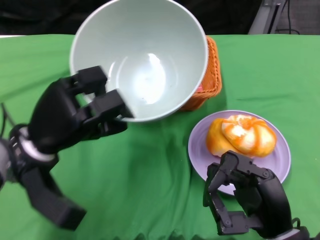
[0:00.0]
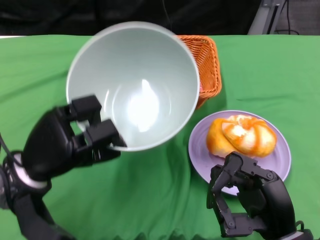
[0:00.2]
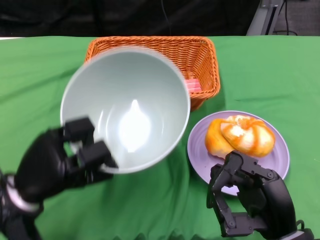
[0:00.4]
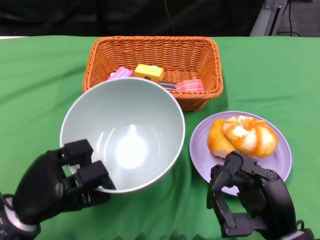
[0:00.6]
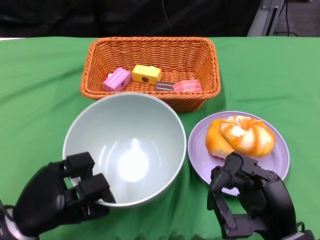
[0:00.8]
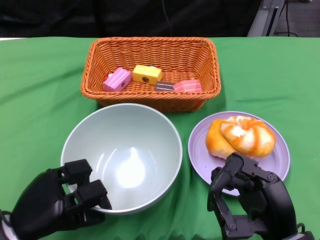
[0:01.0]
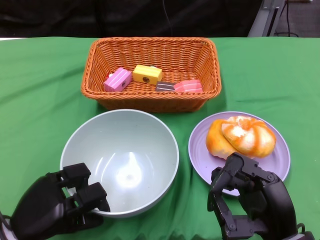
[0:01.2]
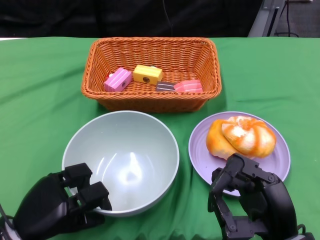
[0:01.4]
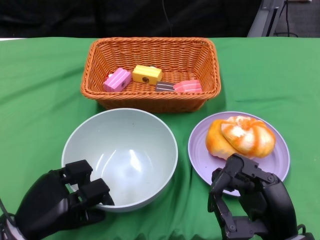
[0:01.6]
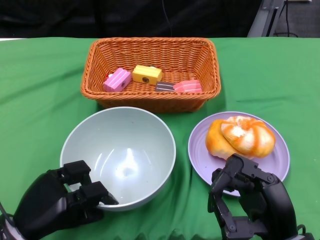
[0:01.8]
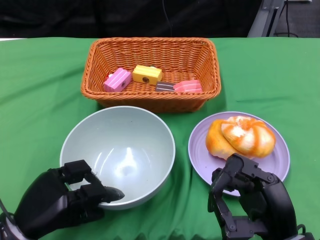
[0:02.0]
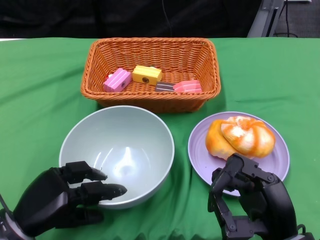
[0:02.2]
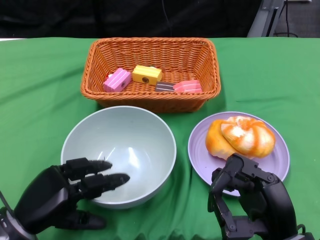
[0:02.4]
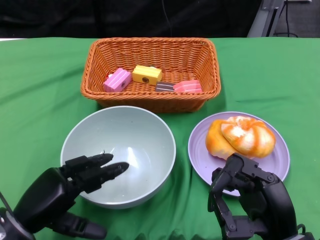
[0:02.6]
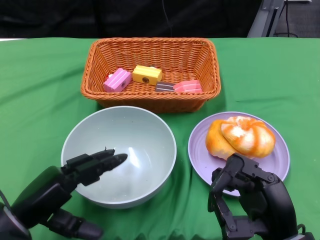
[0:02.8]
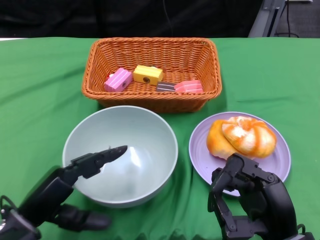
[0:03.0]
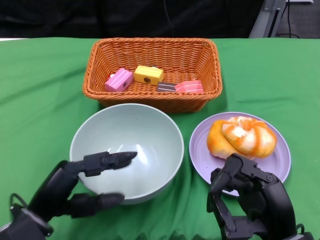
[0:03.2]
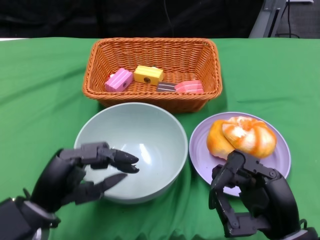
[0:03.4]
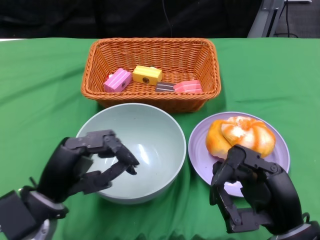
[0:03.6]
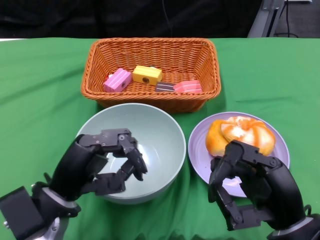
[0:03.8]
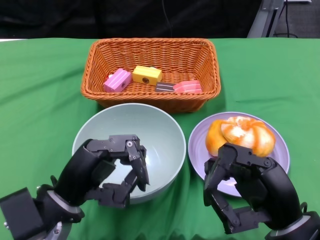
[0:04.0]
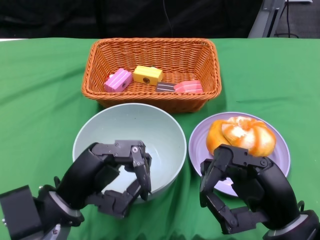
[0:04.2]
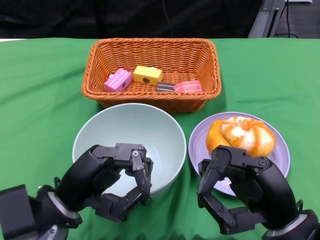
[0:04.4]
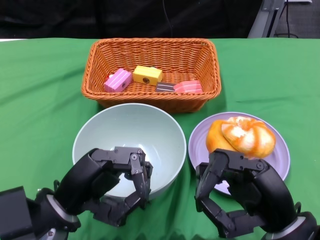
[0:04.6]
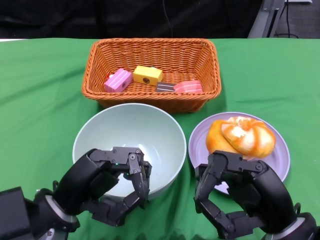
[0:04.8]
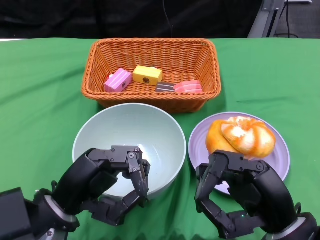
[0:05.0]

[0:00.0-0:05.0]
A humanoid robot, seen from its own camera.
Step, 0:00.0 to 0:02.0: Place the bowl on the table with the left gripper.
0:00.0 to 0:01.6: The left hand heads downward and backward, covering some 15 cm.
0:01.6 to 0:03.4: The left hand shifts by about 5 cm.
0:03.4 to 0:05.0: There are only small adjustments of the hands.

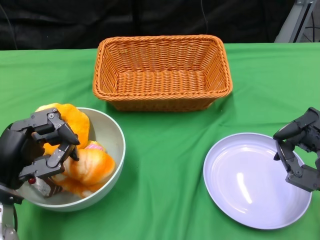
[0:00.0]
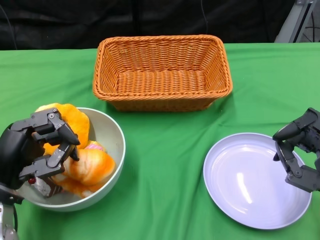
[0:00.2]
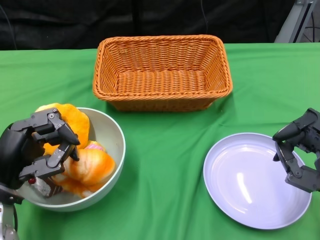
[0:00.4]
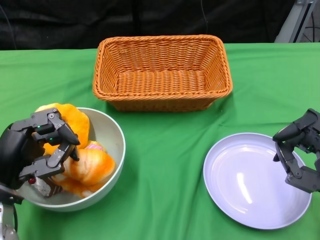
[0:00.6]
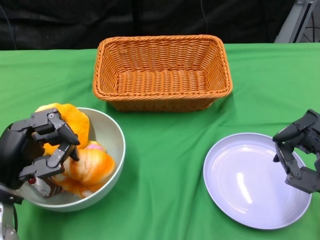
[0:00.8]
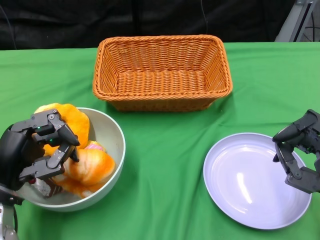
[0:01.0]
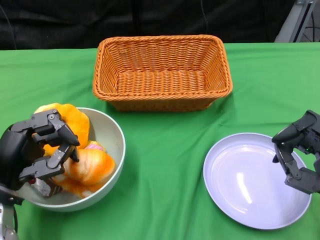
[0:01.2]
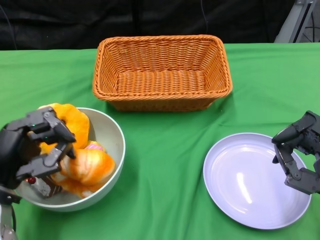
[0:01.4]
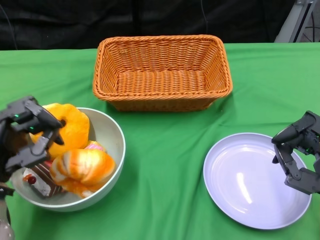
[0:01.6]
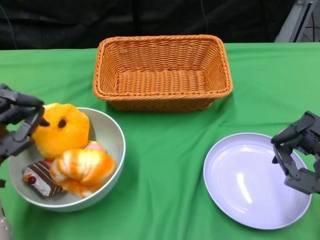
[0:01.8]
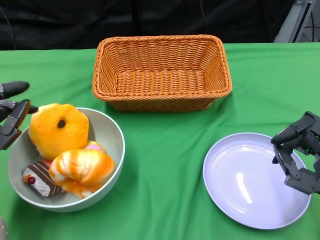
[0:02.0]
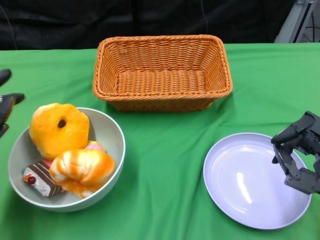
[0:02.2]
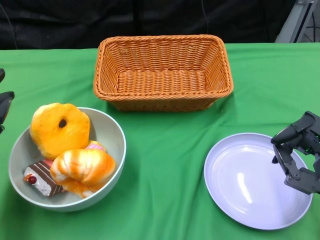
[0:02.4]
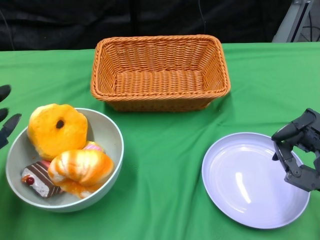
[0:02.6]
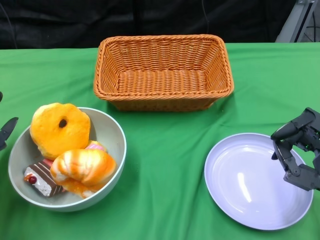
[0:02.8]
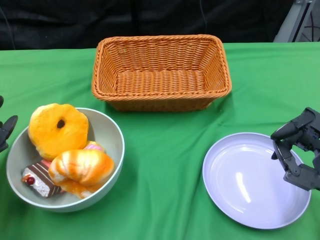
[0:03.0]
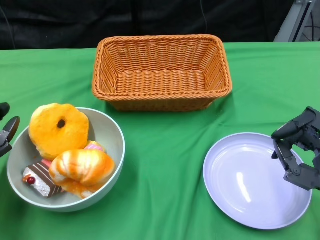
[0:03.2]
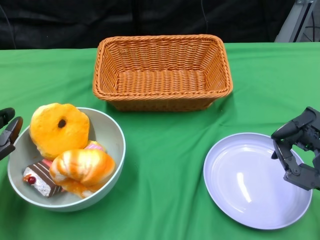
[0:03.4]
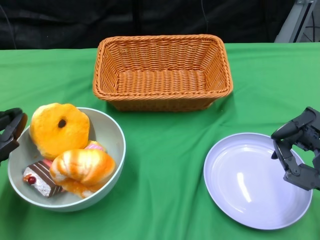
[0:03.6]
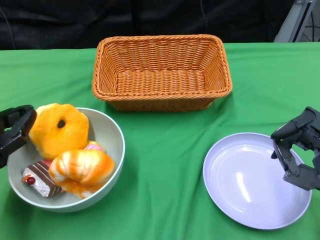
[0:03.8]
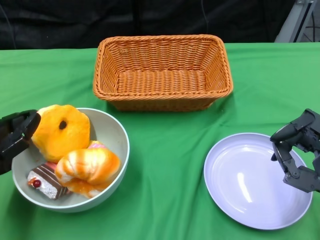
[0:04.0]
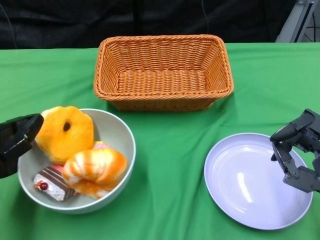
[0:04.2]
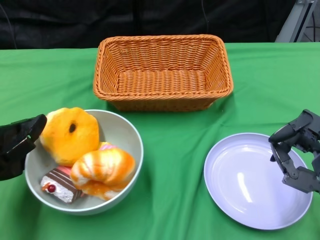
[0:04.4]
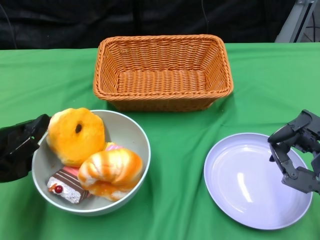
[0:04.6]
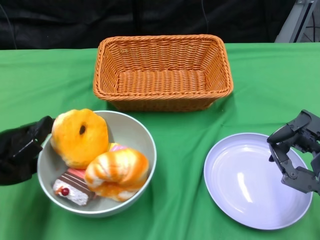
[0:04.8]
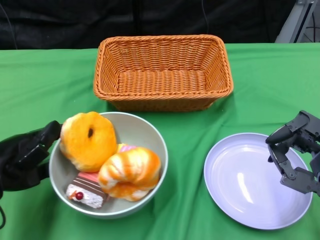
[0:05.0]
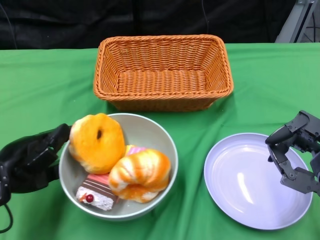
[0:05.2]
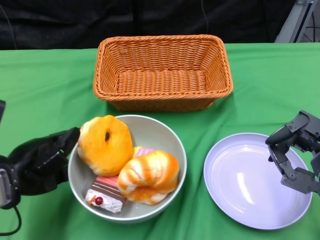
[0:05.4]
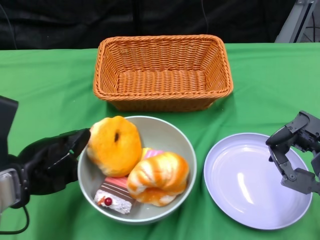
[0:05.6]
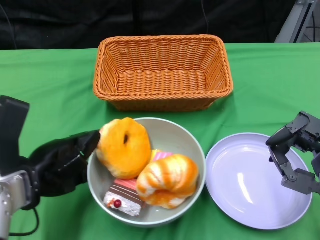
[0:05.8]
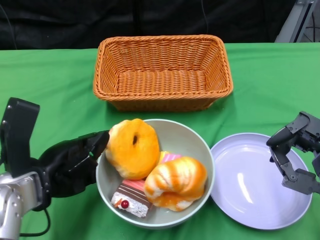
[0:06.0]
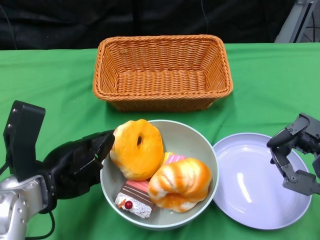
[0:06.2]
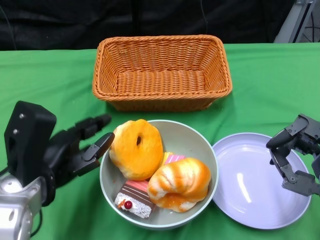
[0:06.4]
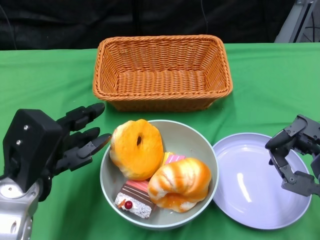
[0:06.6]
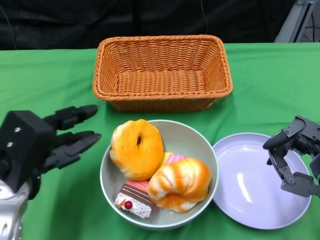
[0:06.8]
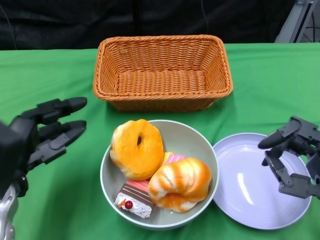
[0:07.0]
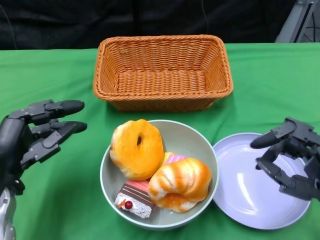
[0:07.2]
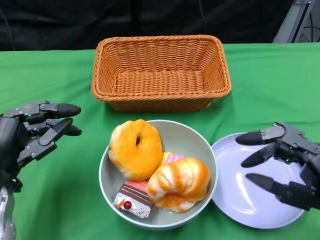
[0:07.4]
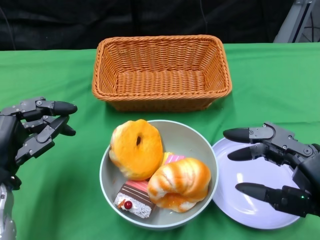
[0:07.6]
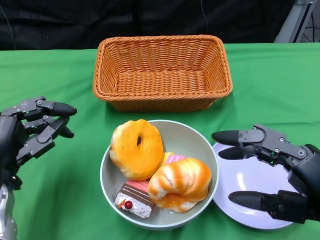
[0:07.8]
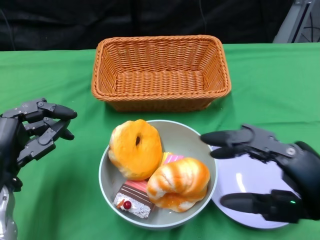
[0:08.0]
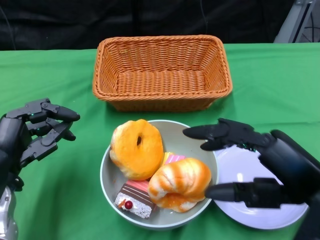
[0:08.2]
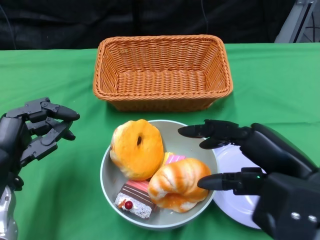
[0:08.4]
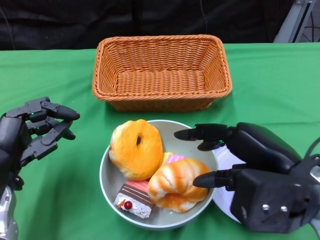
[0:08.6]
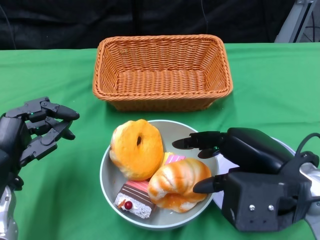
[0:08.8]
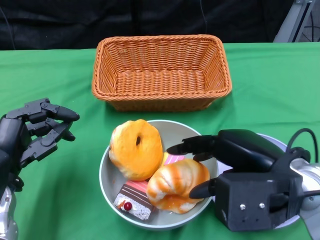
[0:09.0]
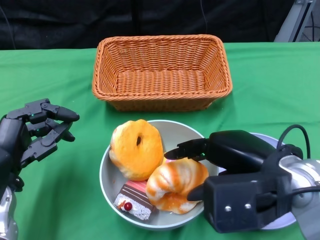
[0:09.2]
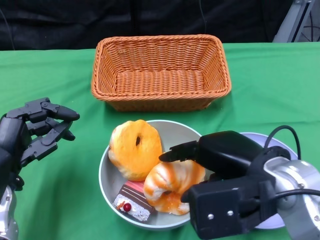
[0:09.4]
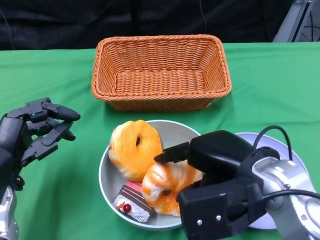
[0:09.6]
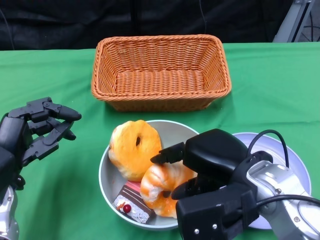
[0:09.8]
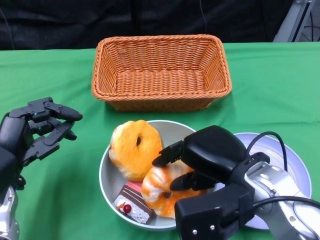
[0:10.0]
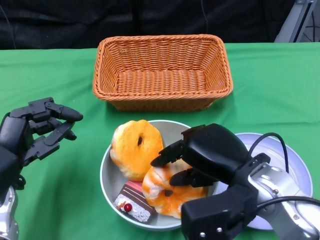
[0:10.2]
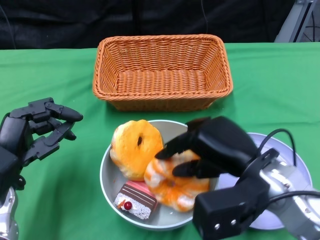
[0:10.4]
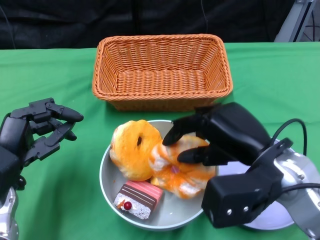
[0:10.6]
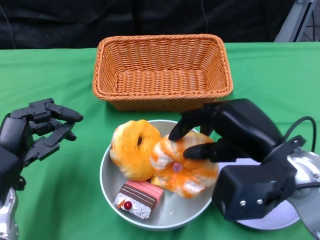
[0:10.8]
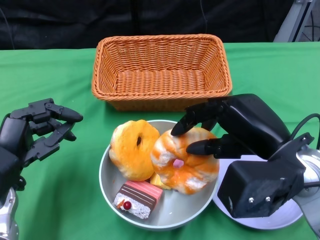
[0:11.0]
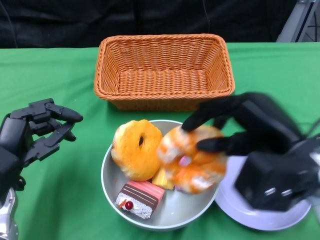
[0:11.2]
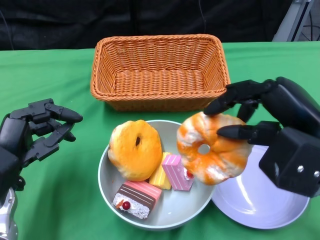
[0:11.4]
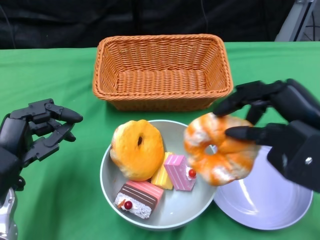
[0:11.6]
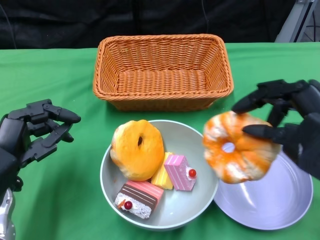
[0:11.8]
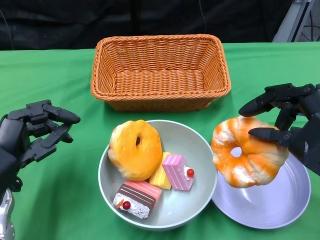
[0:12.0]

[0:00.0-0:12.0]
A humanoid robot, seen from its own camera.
Step, 0:00.0 to 0:06.8: Push the bowl to the center of the table using the left gripper.
0:01.6 to 0:03.0: The left hand moves about 5 cm.
0:04.4 to 0:06.0: The left hand is displaced to the right by about 10 cm.
0:06.0 to 0:07.6: The right hand ends up some 5 cm from where it was.
0:07.6 to 0:09.0: The right hand goes approximately 10 cm to the left and forward.
0:09.0 to 0:10.4: The right hand ends up roughly 5 cm from where it was.
0:10.4 to 0:12.0: The right hand goes some 10 cm to the right and upward.

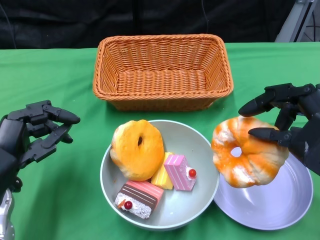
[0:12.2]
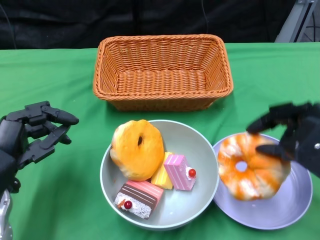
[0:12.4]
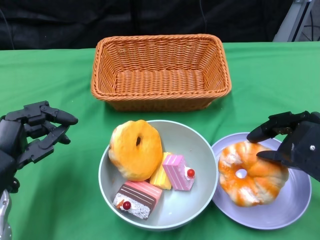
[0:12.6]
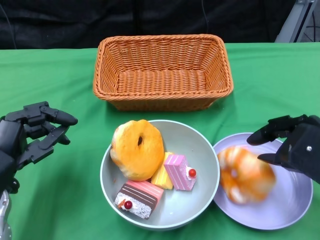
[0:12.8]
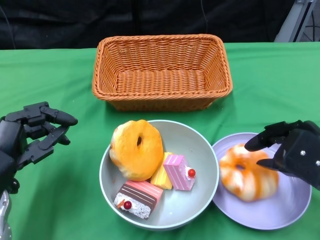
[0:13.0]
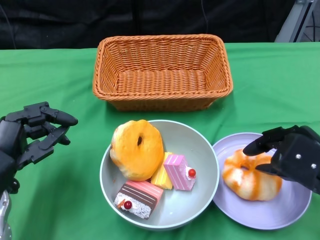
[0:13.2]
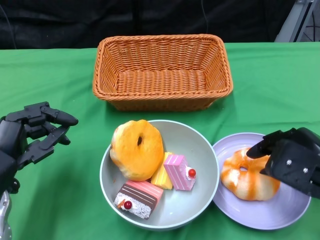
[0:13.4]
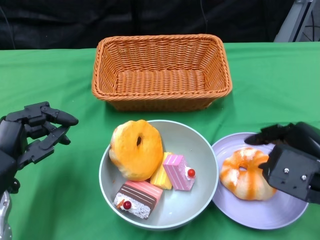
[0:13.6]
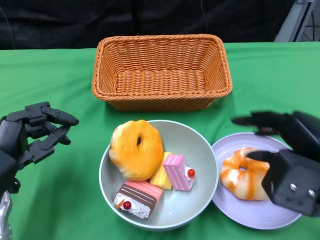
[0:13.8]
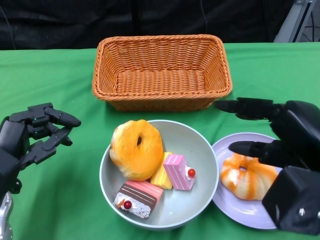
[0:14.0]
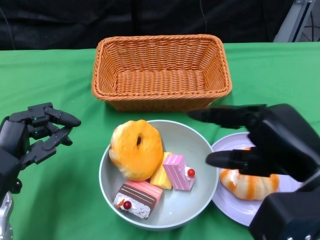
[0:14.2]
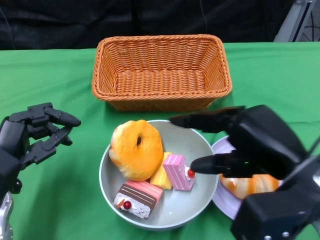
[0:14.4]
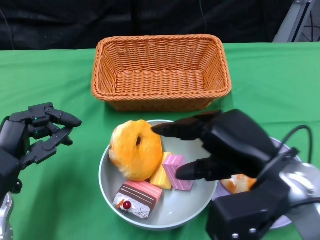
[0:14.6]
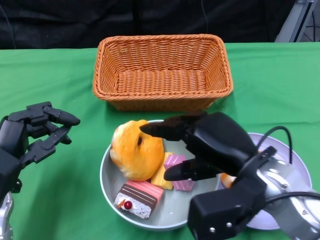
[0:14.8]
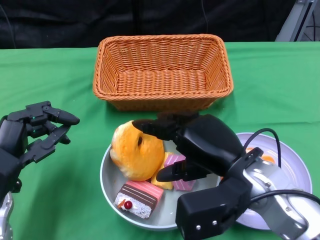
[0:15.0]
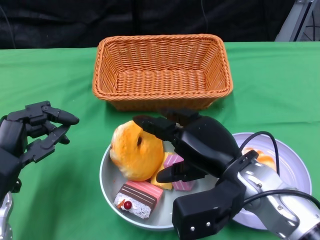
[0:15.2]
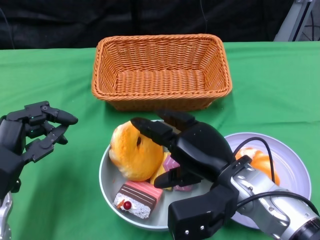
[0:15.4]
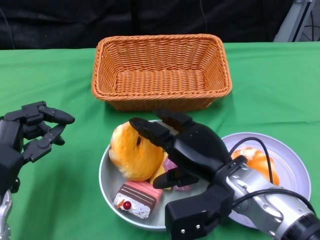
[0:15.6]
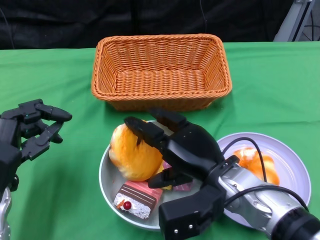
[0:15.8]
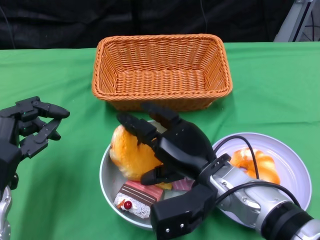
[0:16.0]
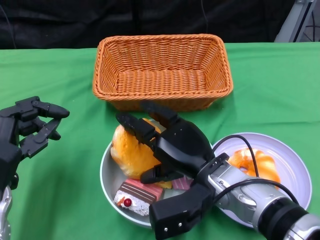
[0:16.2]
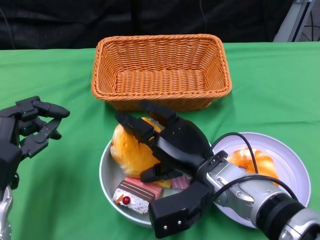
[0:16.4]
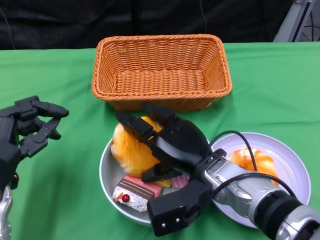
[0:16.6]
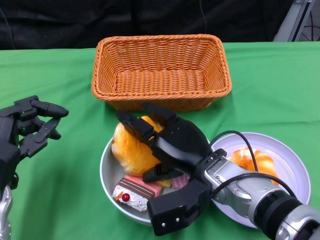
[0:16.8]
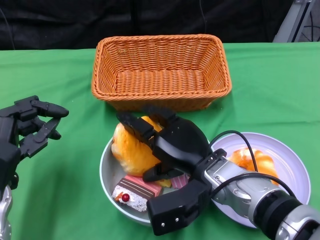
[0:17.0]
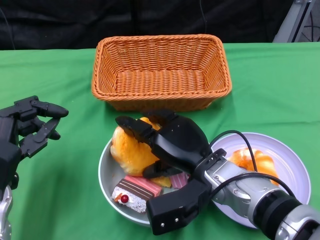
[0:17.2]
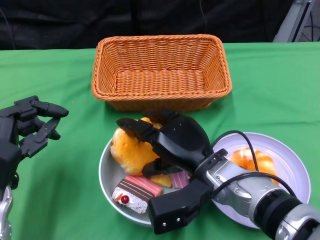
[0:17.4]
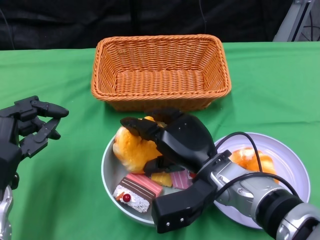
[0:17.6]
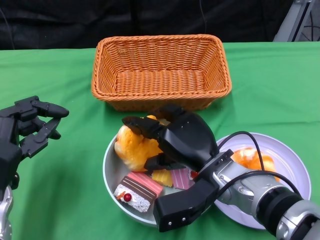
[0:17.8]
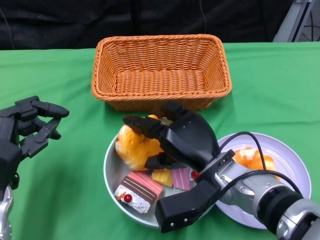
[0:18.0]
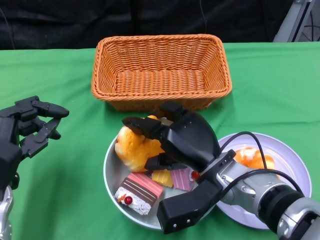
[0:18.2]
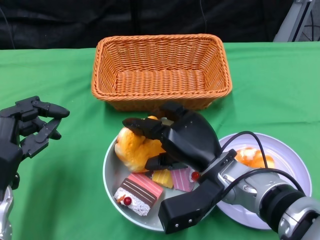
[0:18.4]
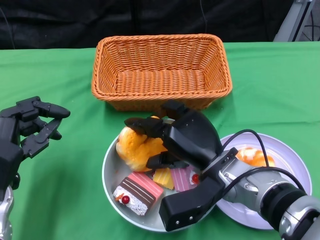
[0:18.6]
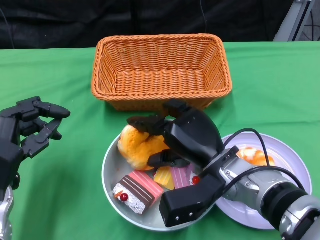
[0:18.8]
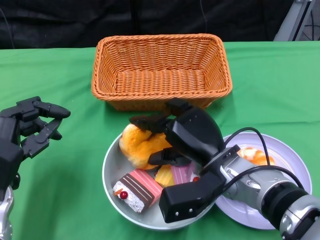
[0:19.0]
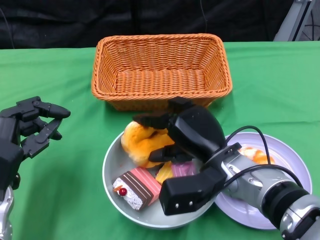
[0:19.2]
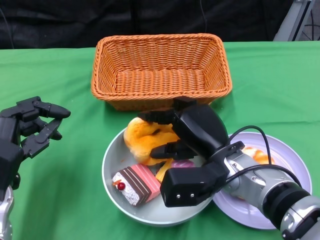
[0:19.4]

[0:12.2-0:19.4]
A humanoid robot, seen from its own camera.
0:13.6 to 0:15.0: The right hand goes roughly 10 cm to the left.
0:15.0 to 0:16.6: The right hand goes about 5 cm downward.
0:16.6 to 0:18.0: There are only small adjustments of the hands.
